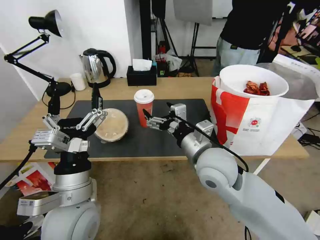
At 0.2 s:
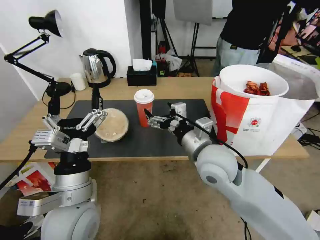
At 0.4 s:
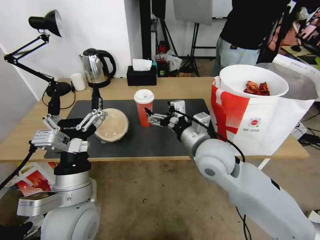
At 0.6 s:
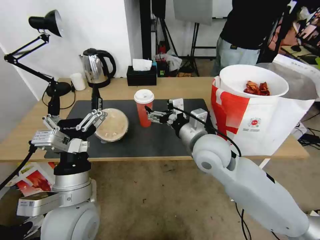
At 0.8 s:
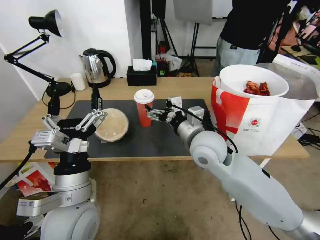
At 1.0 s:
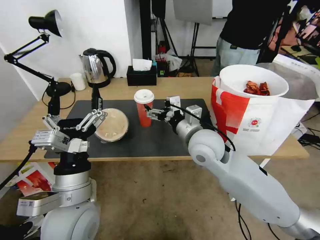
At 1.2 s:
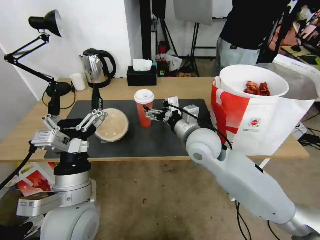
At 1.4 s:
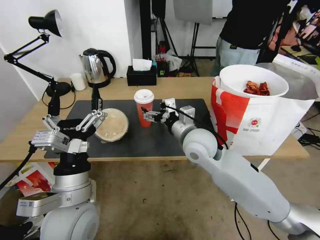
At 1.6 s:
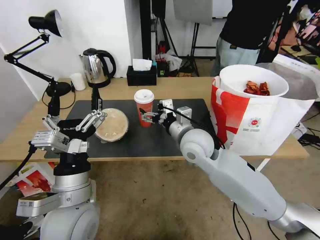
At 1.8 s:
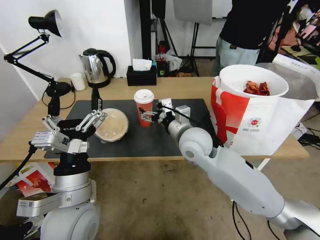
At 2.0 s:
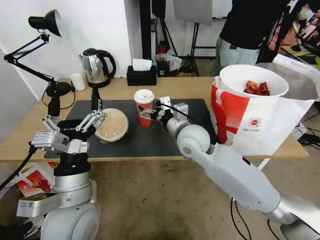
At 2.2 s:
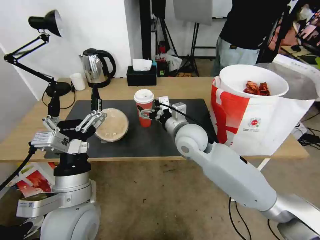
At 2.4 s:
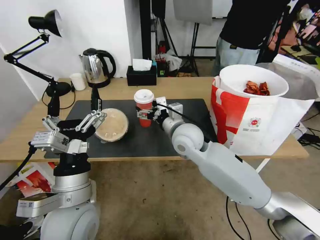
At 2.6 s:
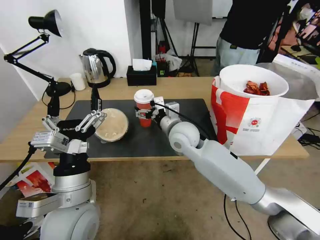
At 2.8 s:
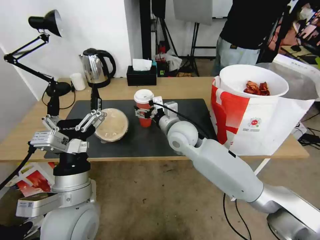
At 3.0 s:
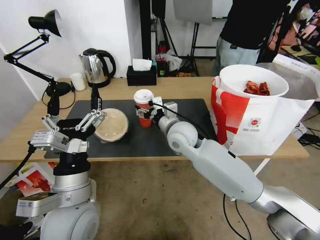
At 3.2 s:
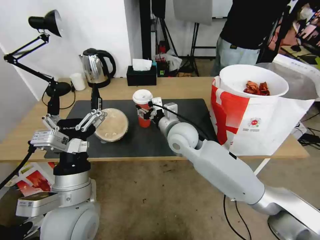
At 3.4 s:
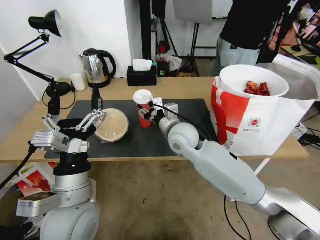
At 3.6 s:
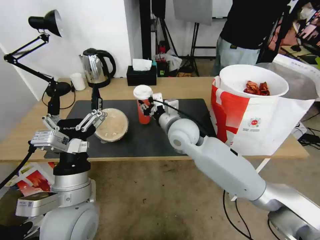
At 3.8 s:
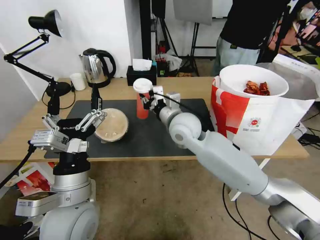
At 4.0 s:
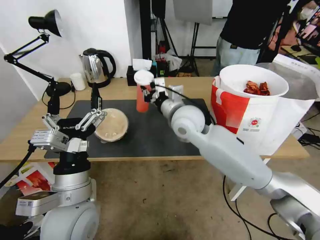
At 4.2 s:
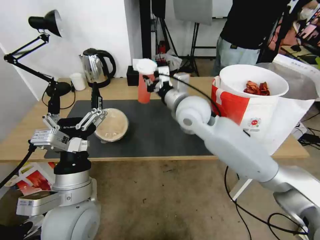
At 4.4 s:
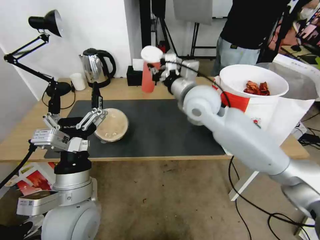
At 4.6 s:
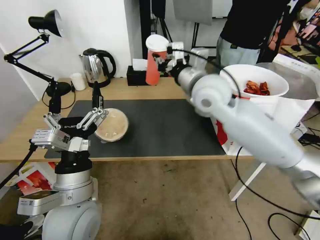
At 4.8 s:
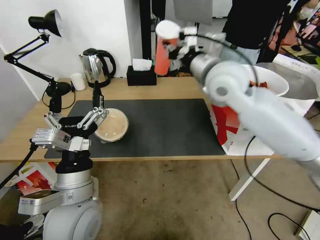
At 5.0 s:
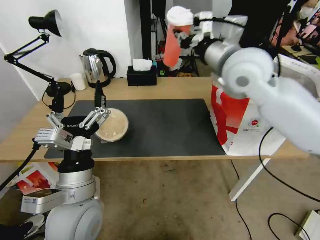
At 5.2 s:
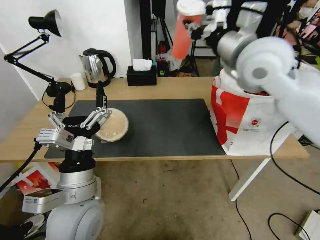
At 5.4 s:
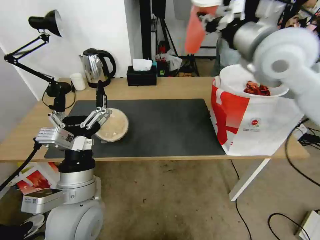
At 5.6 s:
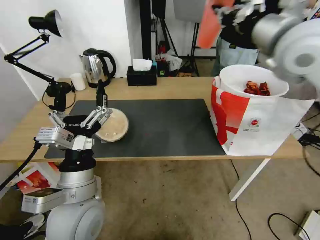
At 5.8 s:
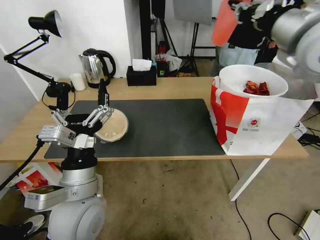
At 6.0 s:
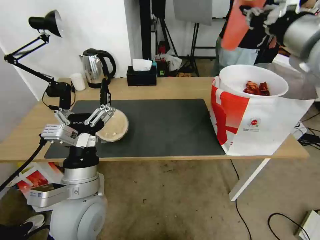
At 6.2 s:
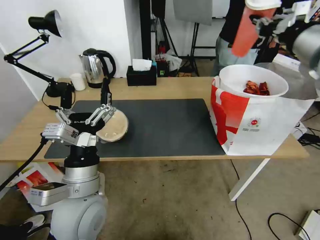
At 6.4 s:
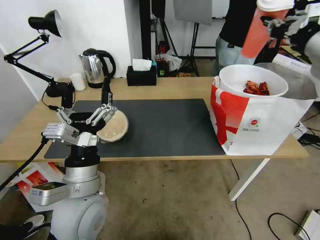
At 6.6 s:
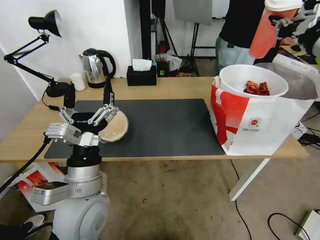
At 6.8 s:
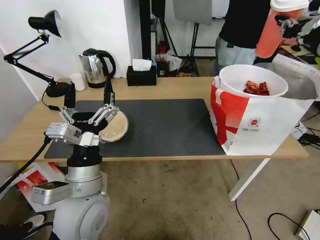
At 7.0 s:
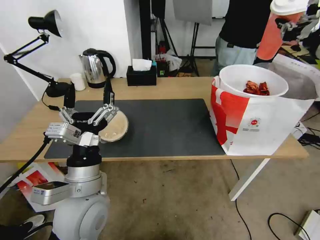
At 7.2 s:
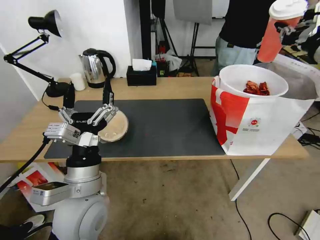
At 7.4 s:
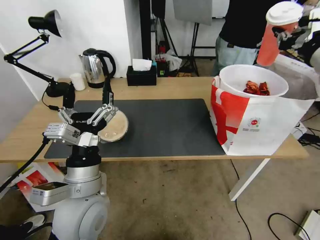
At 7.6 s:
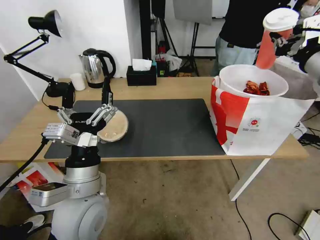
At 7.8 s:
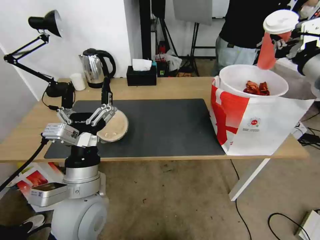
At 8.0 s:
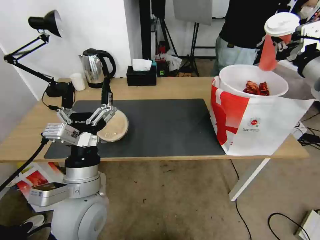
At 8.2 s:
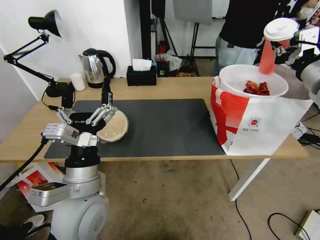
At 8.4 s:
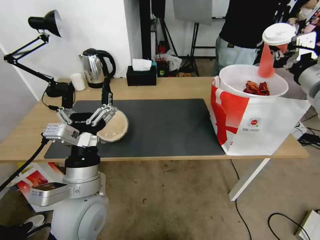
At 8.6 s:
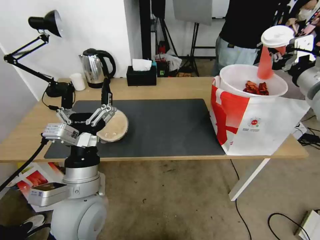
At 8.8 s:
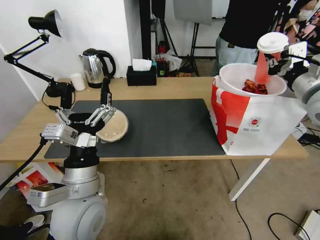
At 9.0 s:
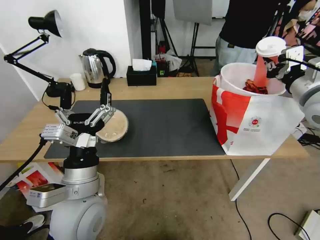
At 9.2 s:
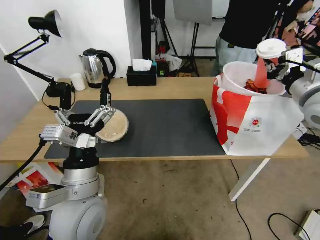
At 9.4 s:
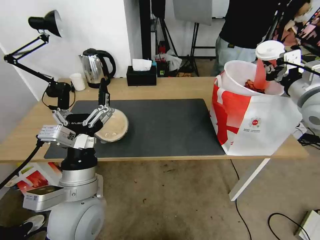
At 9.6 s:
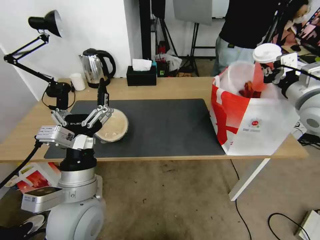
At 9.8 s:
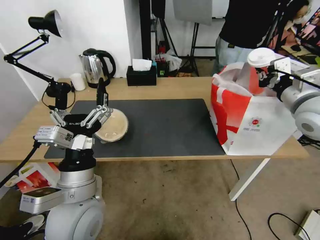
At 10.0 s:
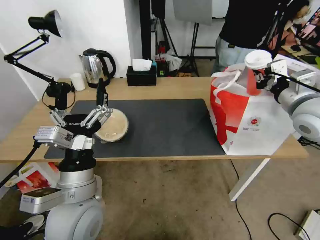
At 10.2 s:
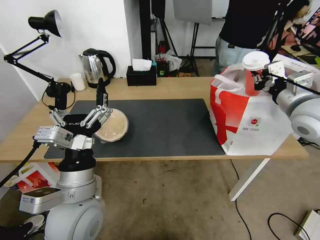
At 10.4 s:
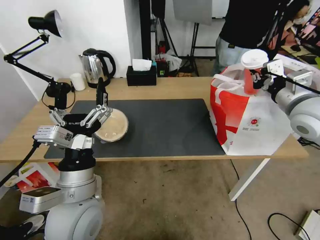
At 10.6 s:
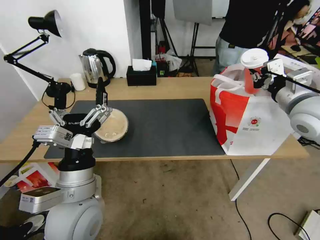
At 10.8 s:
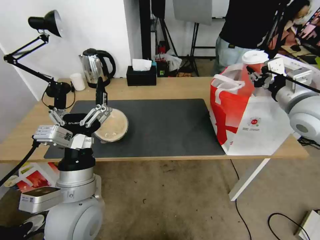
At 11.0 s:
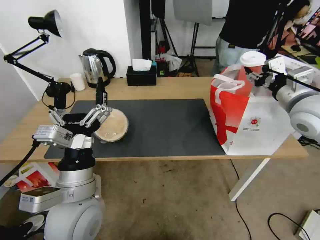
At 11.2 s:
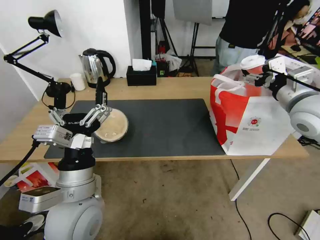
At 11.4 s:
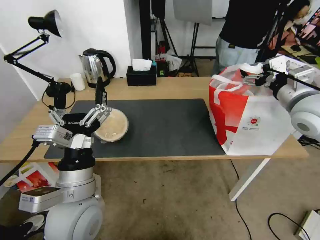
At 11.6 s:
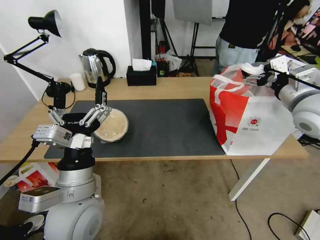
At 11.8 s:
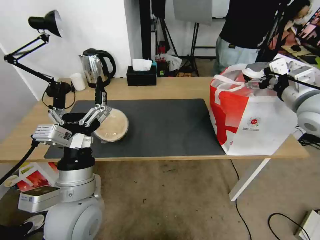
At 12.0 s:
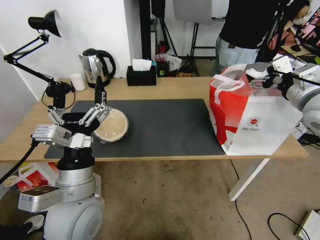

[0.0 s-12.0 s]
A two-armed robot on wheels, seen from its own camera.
Task of the whole recording: Pick up the trash from the table and place it into the takeout bag.
0.0 to 1.6 s: The right gripper shifts some 10 cm forward.
1.6 to 3.0 s: The right gripper changes place by roughly 5 cm.
3.0 to 4.4 s: The right gripper heads upward, covering roughly 15 cm, and closes its fingers.
4.4 to 6.0 s: The right gripper heads to the right and upward, covering roughly 25 cm.
6.0 to 7.6 s: The right gripper is displaced to the right and downward by about 10 cm.
7.6 to 9.0 s: The right gripper is displaced downward by approximately 5 cm.
9.0 to 10.4 s: The grippers make only small movements.
10.4 to 12.0 s: The right gripper opens.

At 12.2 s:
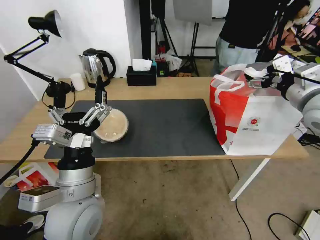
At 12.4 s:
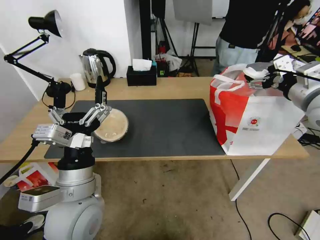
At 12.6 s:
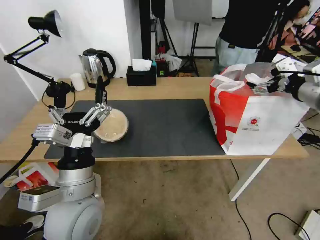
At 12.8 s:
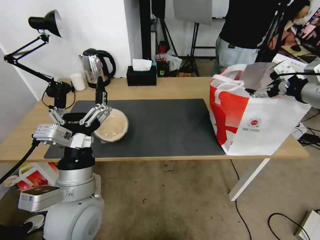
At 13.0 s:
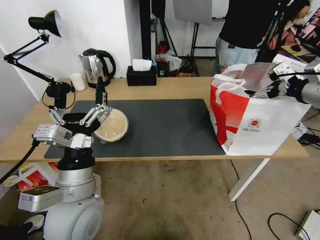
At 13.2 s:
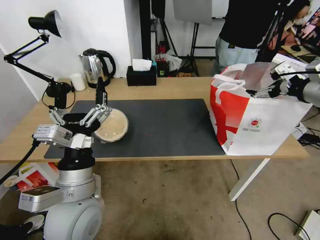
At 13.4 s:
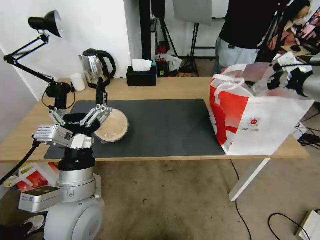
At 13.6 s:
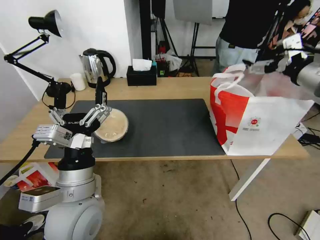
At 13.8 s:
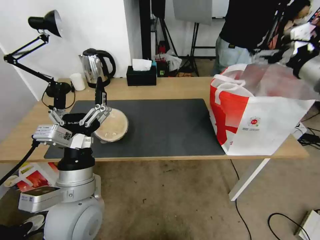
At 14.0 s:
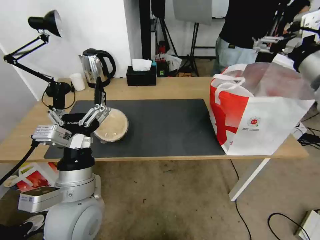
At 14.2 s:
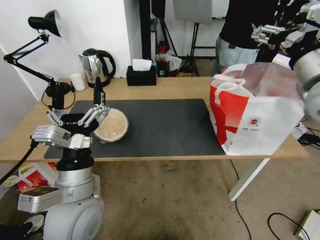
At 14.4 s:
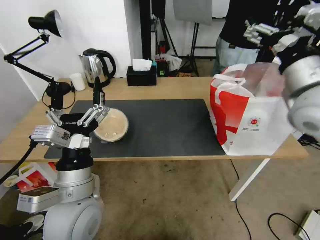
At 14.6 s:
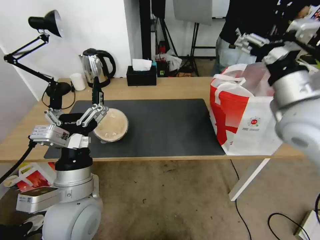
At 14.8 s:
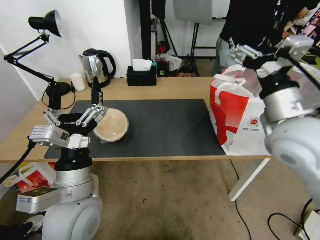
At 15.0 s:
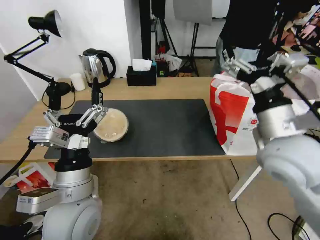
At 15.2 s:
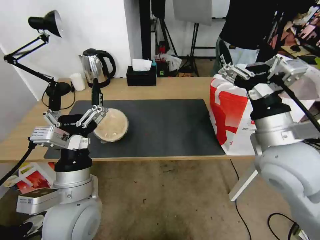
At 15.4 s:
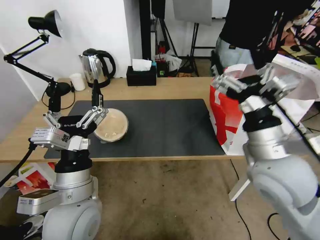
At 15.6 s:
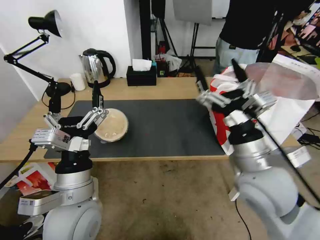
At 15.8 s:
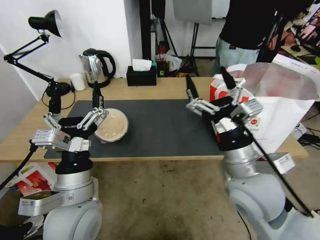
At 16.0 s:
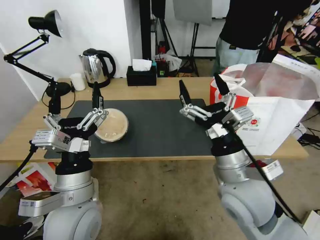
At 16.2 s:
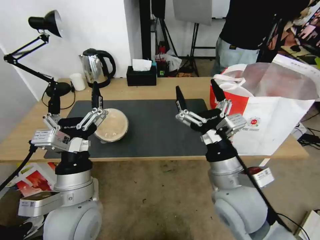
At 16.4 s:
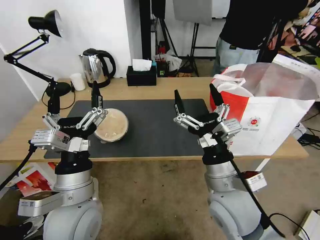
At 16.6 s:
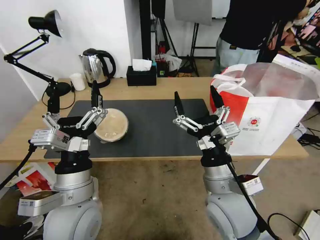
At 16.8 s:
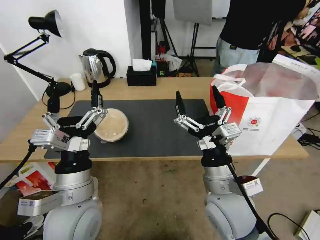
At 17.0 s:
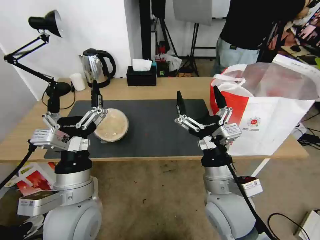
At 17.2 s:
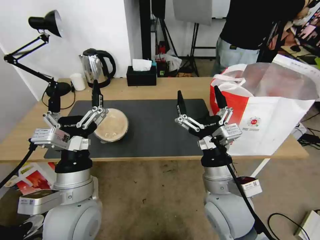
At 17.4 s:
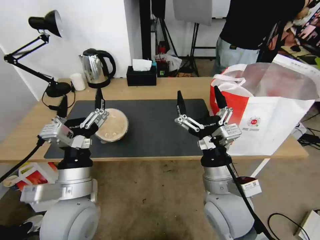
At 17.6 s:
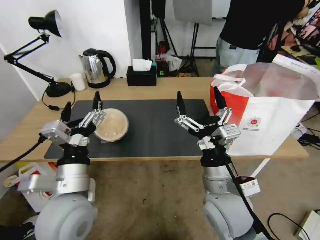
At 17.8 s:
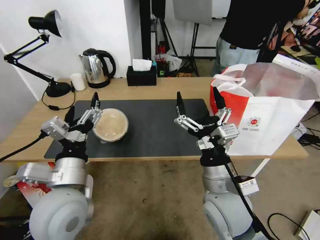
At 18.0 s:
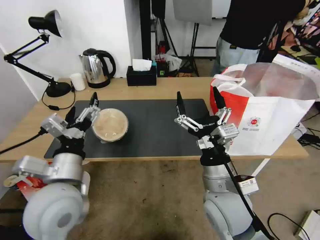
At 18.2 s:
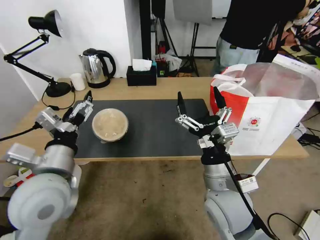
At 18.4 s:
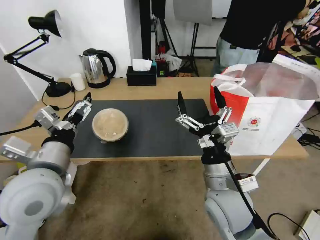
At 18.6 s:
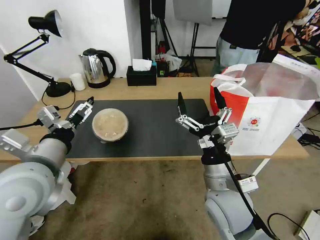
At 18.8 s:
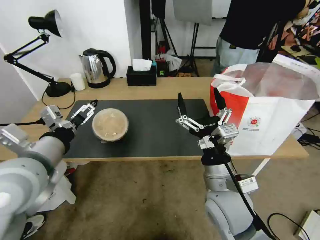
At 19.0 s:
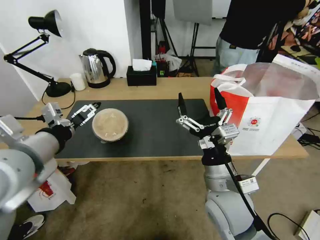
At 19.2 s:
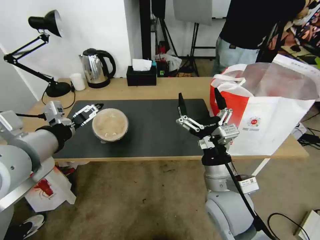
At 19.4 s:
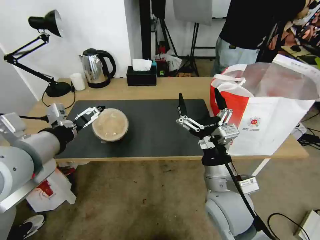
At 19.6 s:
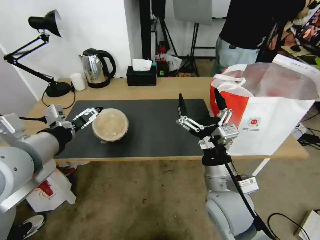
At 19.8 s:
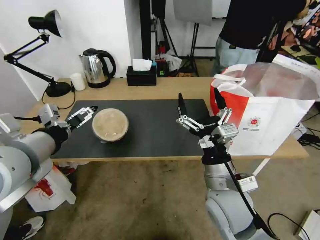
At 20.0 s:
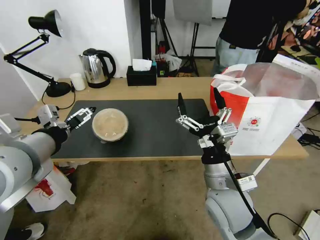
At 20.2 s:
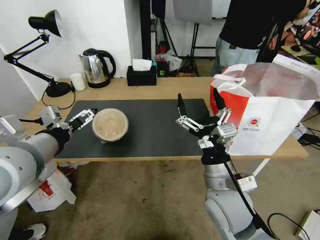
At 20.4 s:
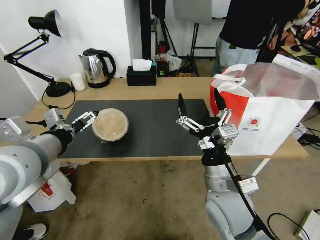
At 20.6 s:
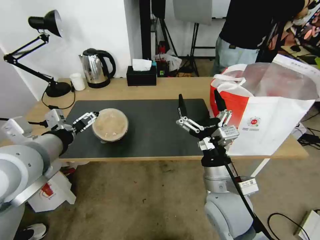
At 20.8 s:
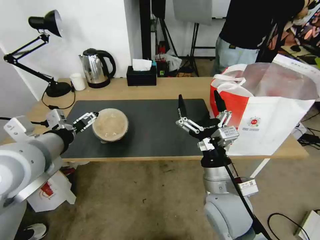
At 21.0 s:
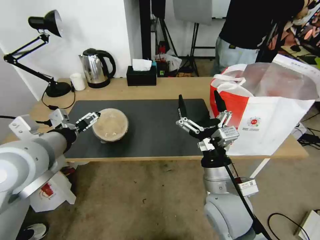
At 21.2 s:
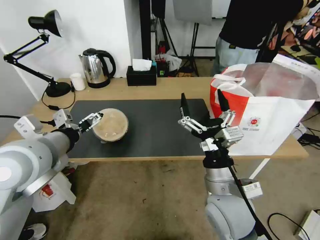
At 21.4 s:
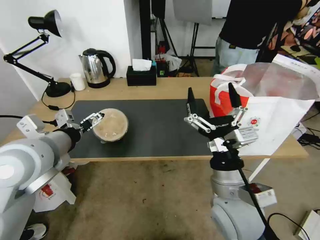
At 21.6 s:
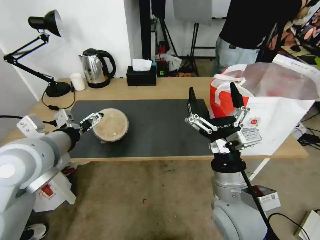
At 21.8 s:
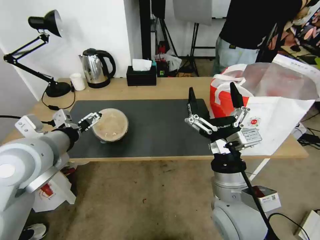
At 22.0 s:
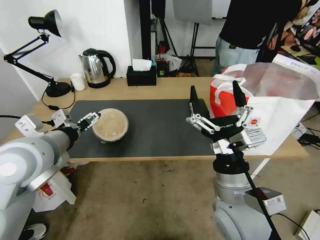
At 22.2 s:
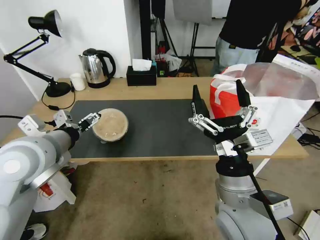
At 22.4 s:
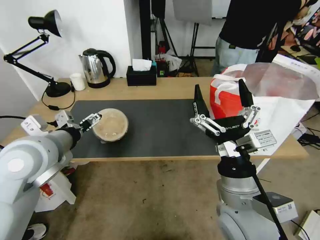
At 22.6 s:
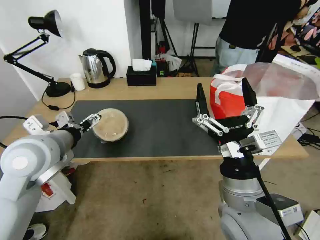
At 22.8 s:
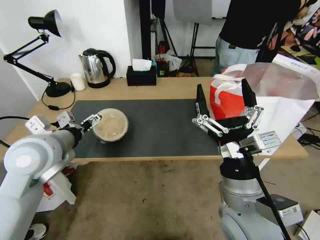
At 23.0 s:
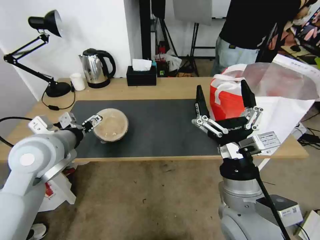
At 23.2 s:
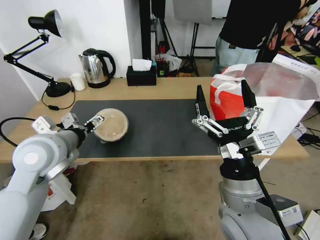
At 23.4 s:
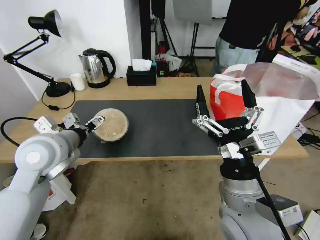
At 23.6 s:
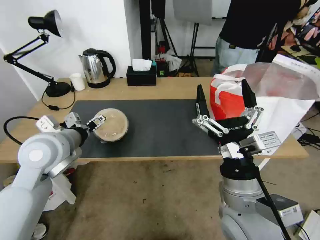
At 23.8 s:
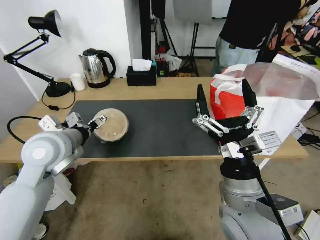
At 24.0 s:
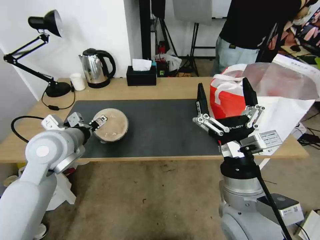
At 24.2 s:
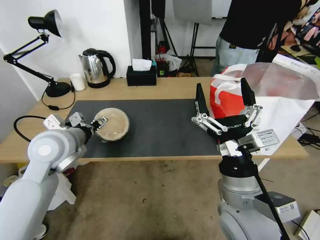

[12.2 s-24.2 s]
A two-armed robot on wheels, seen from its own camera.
Task of the whole recording: Pick up the trash from the table and place it into the takeout bag.
12.2 to 13.8 s: The right gripper moves upward, approximately 5 cm.
13.8 to 15.2 s: The right gripper shifts approximately 20 cm to the left, downward and backward.
15.2 to 16.6 s: The right gripper shifts about 15 cm downward and to the left.
16.6 to 18.2 s: The left gripper changes place by roughly 5 cm.
18.2 to 19.8 s: The left gripper travels upward and to the left by roughly 10 cm.
19.8 to 21.2 s: The grippers move only a little.
21.2 to 22.6 s: The grippers move only a little.
22.6 to 24.2 s: The left gripper ends up some 5 cm from where it was.
